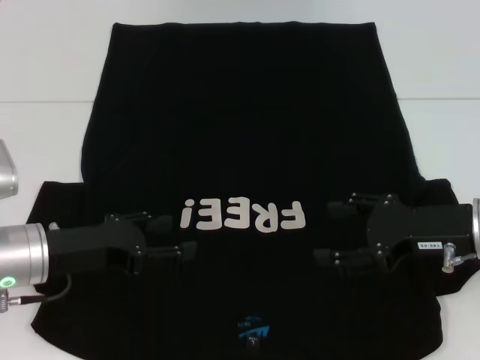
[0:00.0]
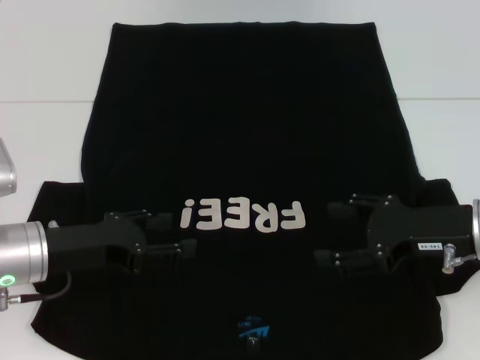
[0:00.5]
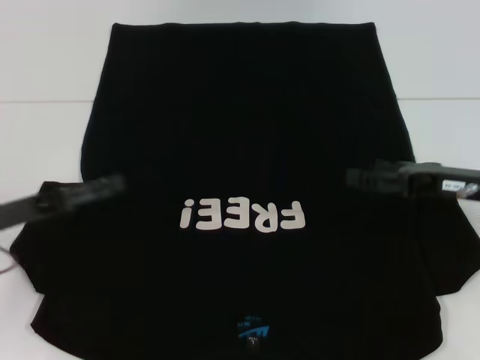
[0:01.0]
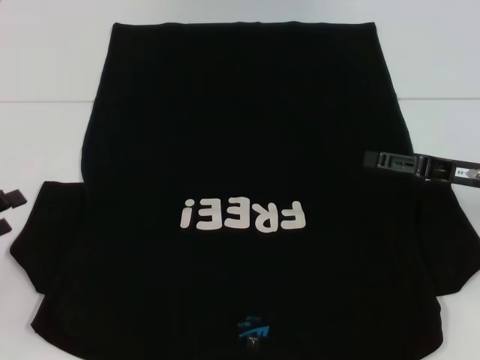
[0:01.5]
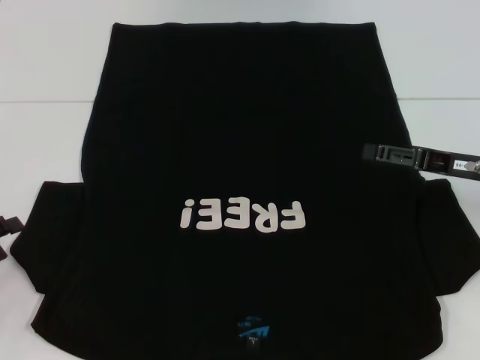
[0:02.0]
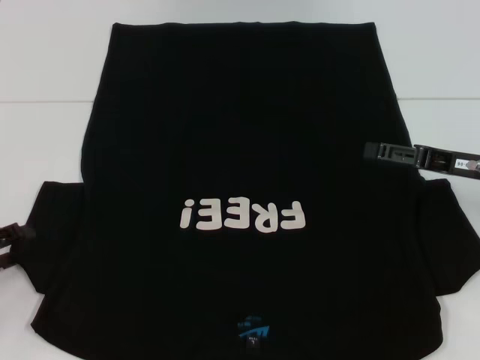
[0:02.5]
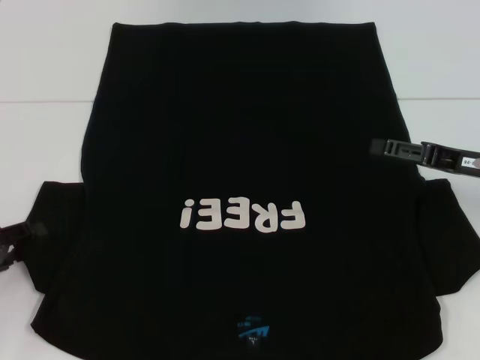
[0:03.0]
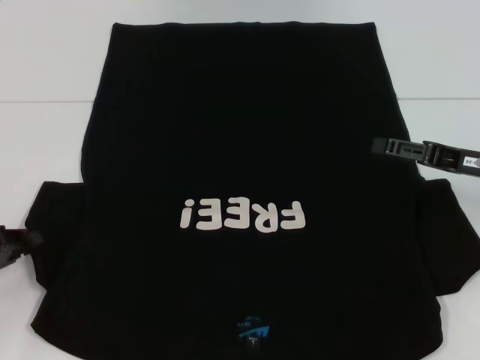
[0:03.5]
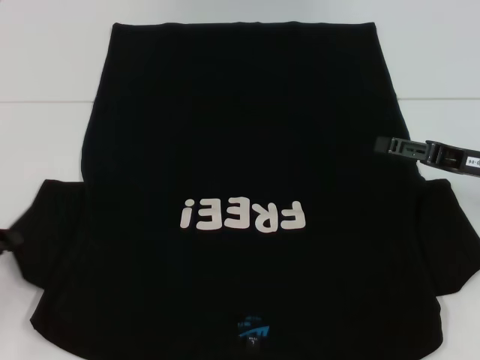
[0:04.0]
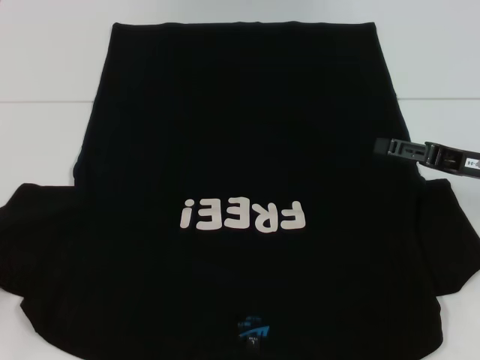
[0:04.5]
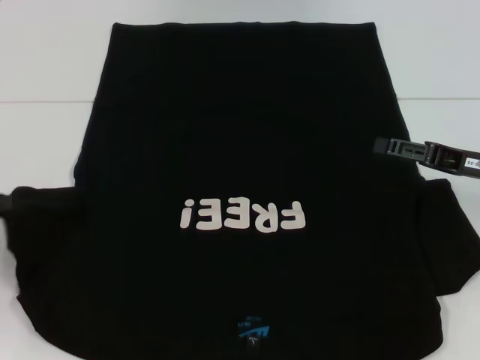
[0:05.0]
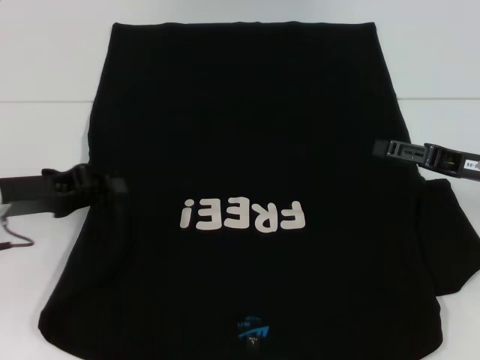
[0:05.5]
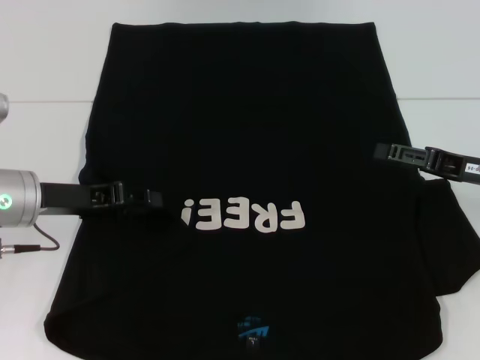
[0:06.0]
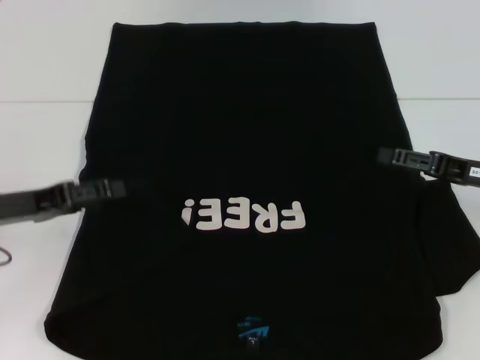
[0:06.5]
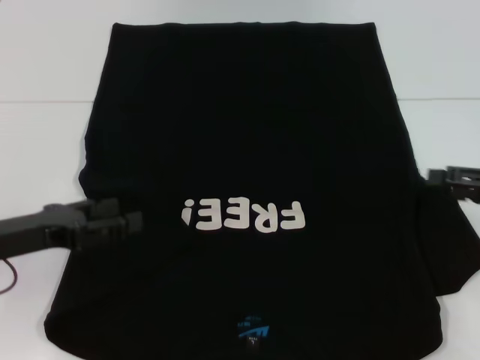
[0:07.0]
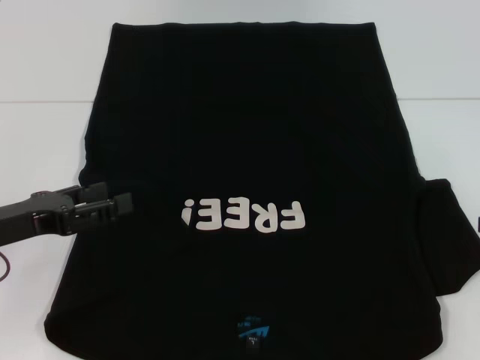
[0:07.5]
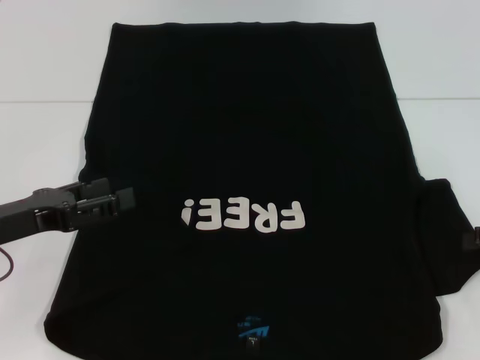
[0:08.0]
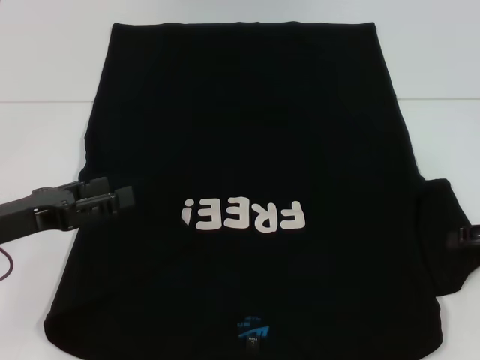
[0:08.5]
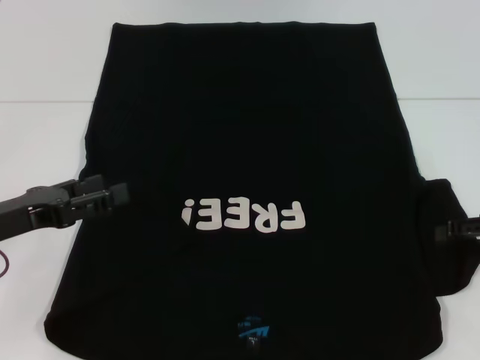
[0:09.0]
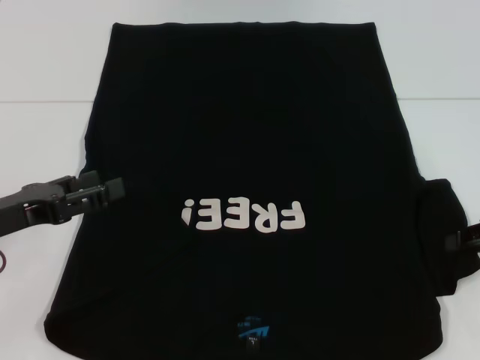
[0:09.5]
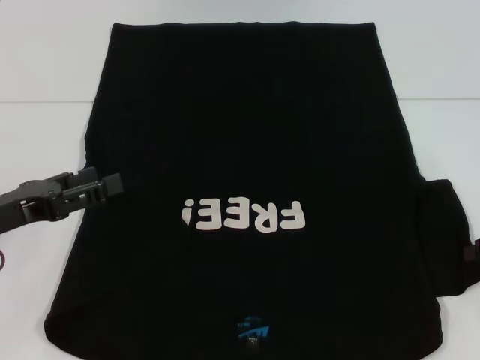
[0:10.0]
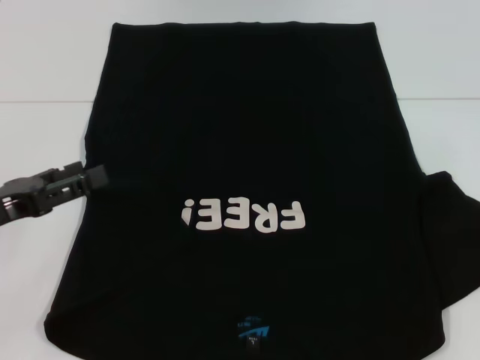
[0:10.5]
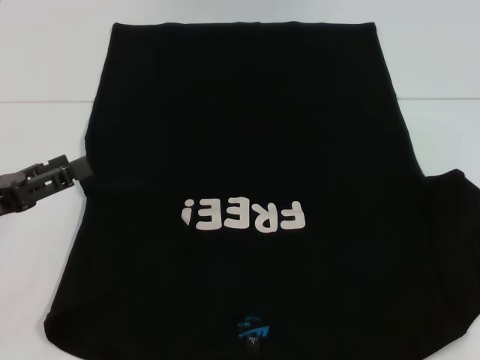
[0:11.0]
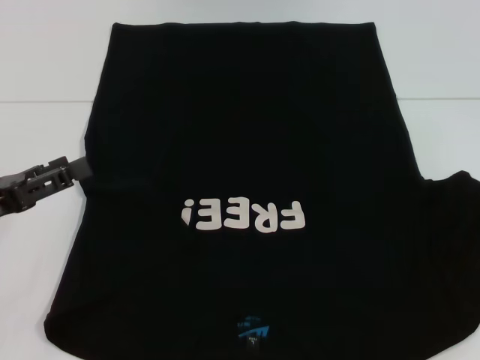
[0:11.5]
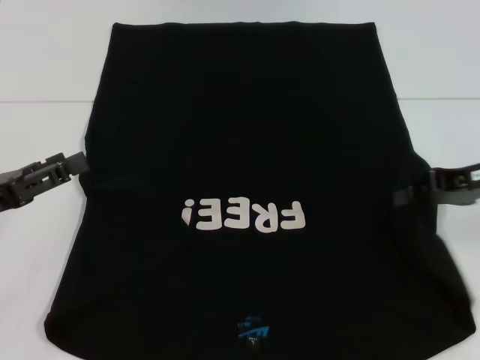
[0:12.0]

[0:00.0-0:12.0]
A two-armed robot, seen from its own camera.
Step, 0.0 to 6.5 s: Fold the bottom left sleeve with your left hand.
0.0 to 2.0 s: The right gripper moves about 5 cm; the left gripper is displaced to the left by approximately 15 cm.
2.0 to 4.0 s: The left gripper closes up.
4.0 to 6.0 s: The left gripper moves to the right and forward, about 15 cm.
6.0 to 8.0 s: The right gripper is displaced to the right by roughly 10 cm. Meanwhile the left gripper is displaced backward by roughly 5 cm, and opens up.
10.0 to 12.0 s: The right gripper shifts about 5 cm to the left.

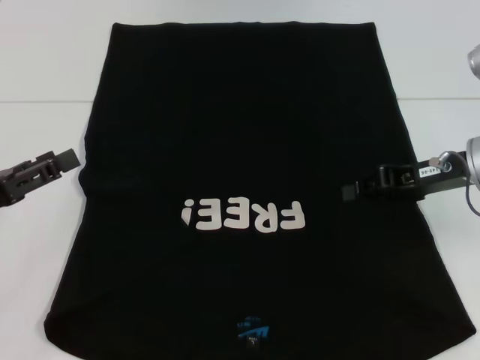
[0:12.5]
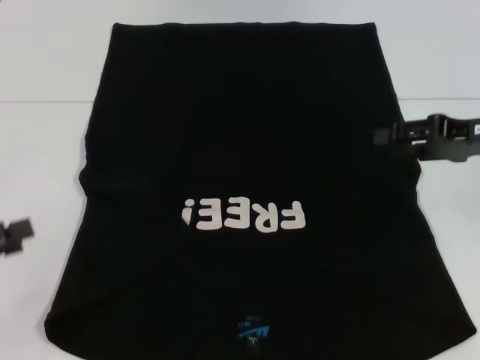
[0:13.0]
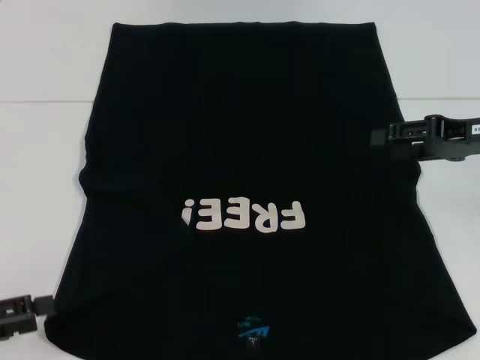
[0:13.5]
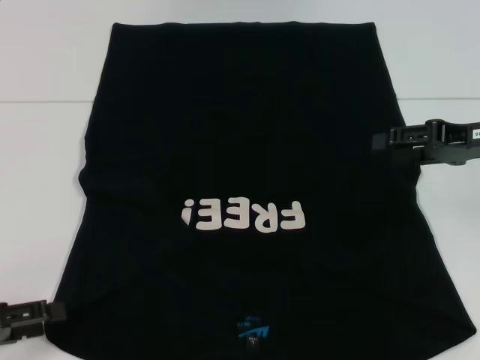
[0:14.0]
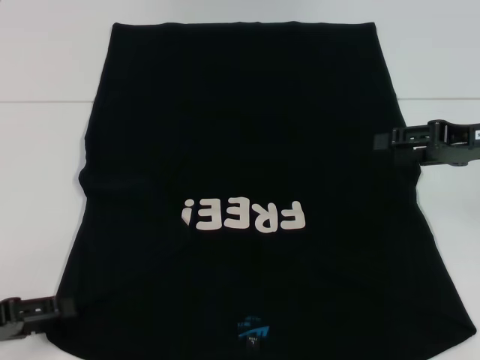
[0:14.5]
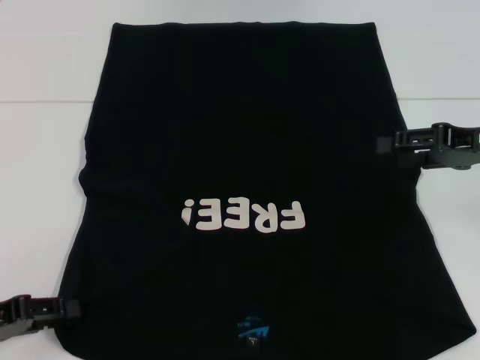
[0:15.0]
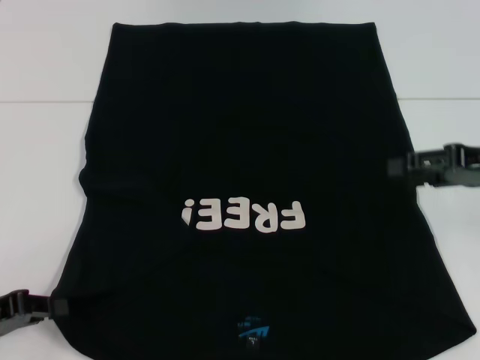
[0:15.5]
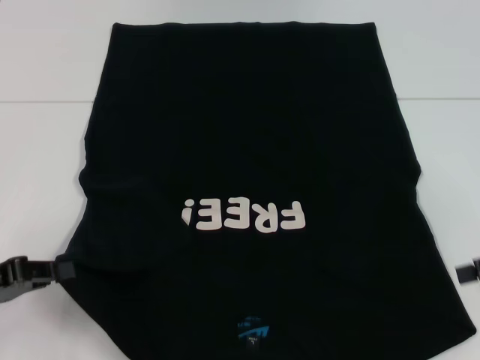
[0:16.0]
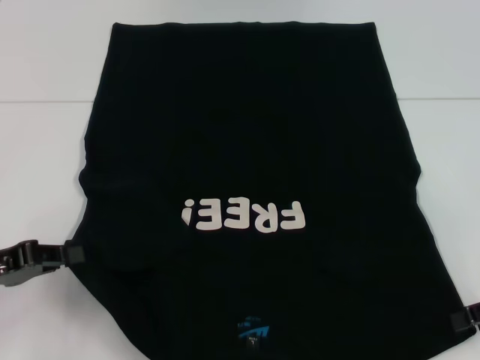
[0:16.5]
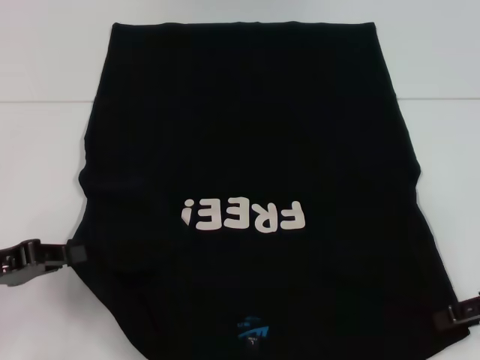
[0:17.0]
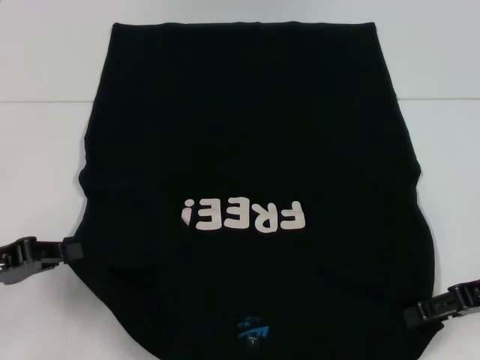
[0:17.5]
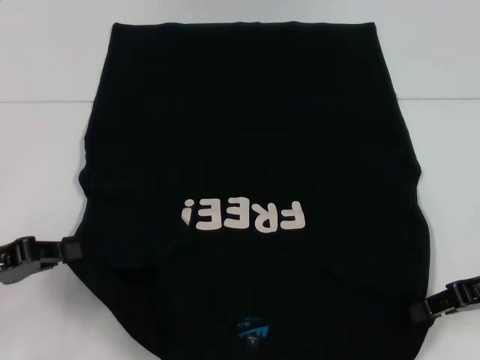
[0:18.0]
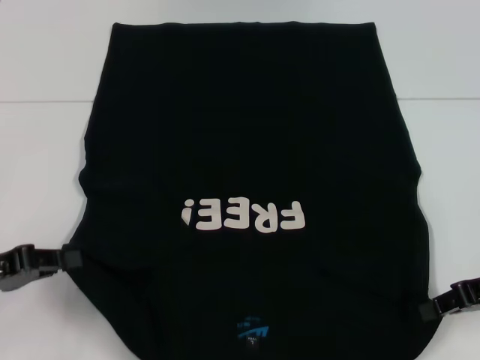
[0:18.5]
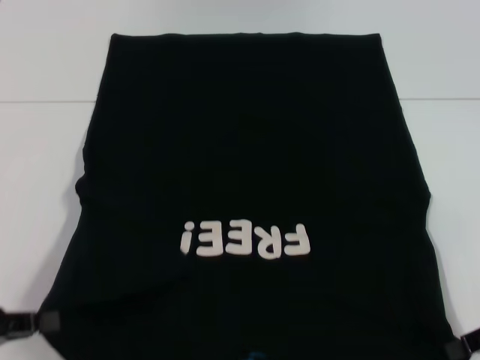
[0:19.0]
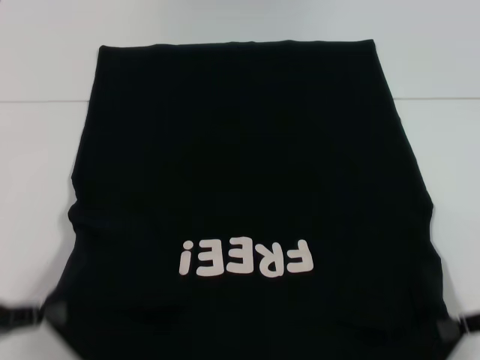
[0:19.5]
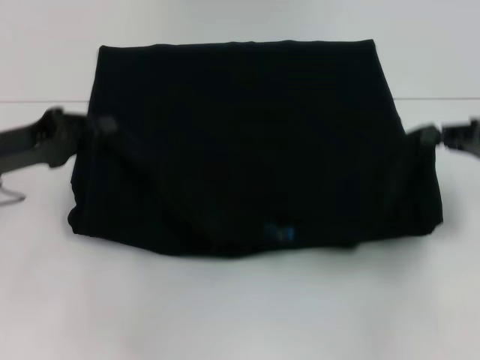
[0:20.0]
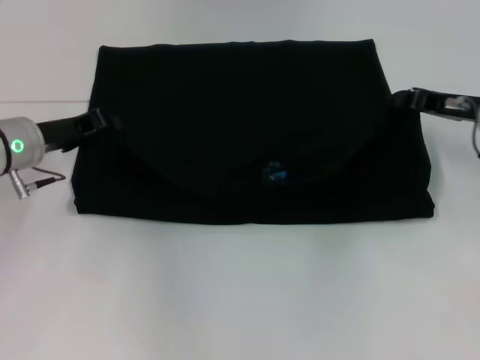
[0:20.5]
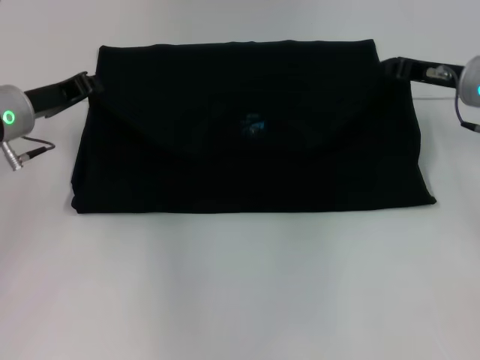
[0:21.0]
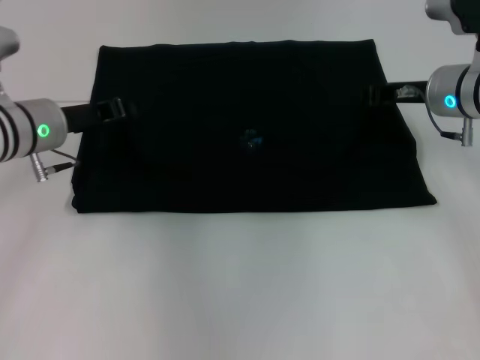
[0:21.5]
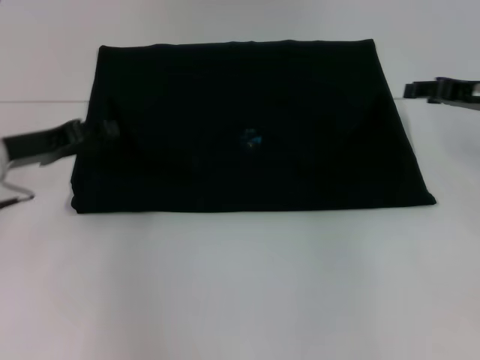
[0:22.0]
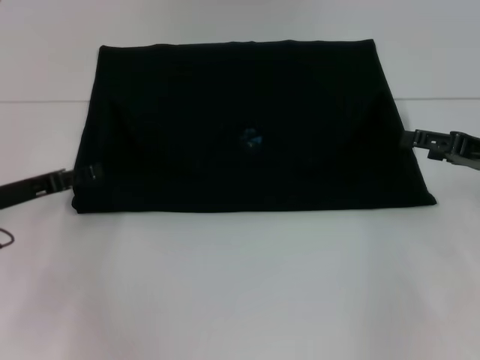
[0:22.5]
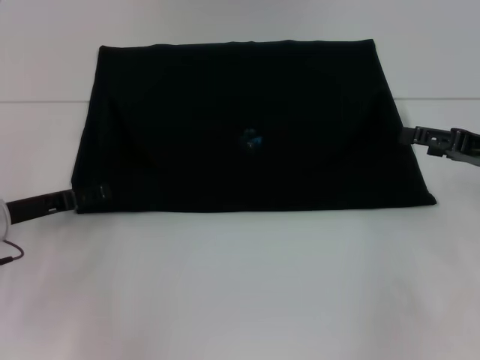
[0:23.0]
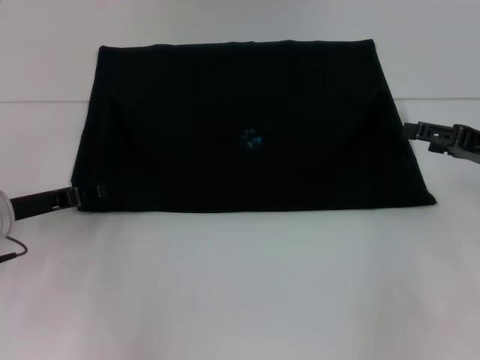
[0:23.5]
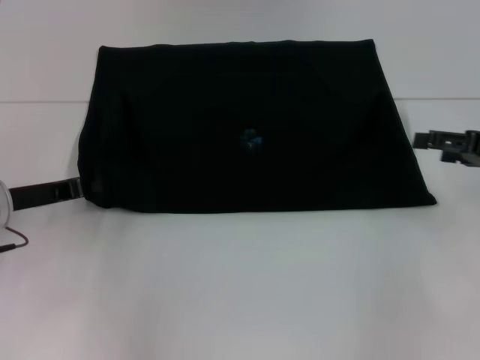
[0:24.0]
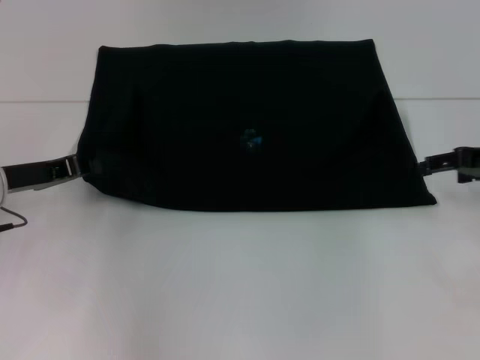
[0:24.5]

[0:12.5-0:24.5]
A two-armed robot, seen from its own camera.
Step, 13.0 to 15.0 s: Grab the bottom left corner with your left hand.
Step, 15.5 to 18.0 s: Grab the bottom right corner with your right hand.
Step, 18.5 to 21.5 s: Fold the clothes with your left hand.
Step, 18.5 to 21.5 s: Fold the clothes with your right hand.
12.5 to 14.5 s: The right gripper changes place by approximately 5 cm, and opens its fingers. Meanwhile the left gripper changes place by some 5 cm.
14.5 to 16.5 s: The right gripper heads backward, to the right and downward, covering about 10 cm. Meanwhile the left gripper closes.
16.5 to 18.5 s: The right gripper closes.
18.5 to 20.5 s: The left gripper travels forward and to the right by about 15 cm. The right gripper moves forward, some 10 cm.
20.5 to 22.5 s: The grippers both shift backward by roughly 5 cm. The right gripper opens up. The left gripper opens.
22.5 to 24.5 s: The left gripper closes up.

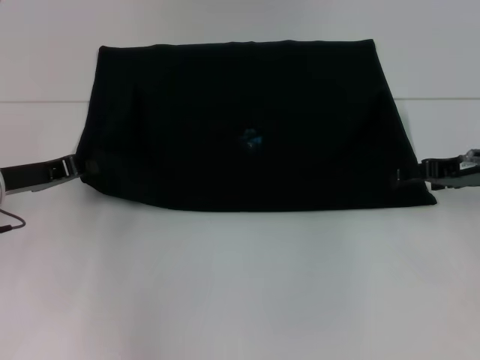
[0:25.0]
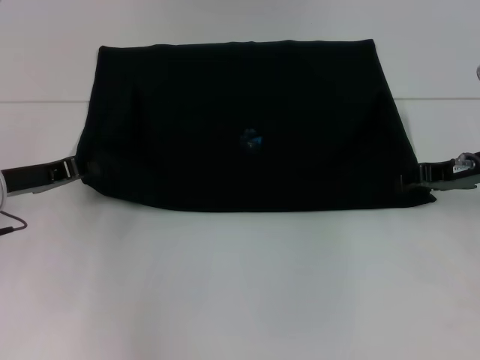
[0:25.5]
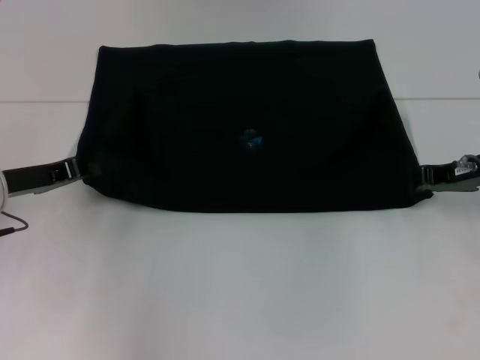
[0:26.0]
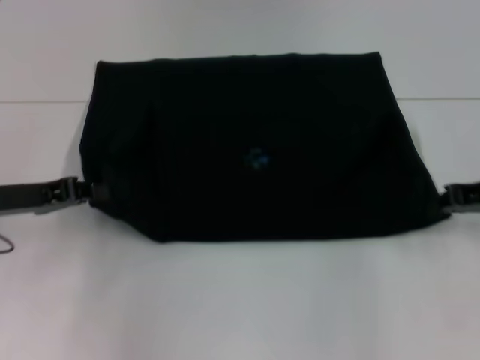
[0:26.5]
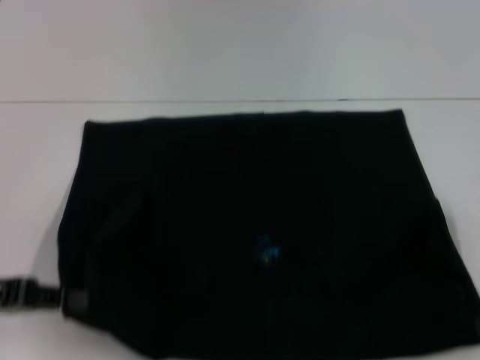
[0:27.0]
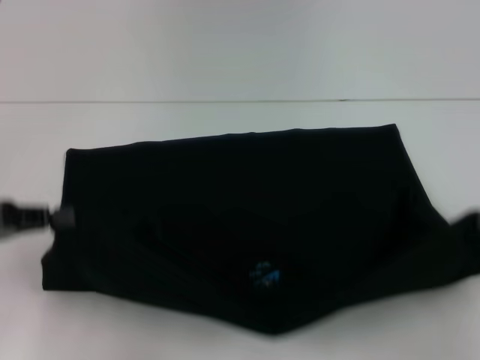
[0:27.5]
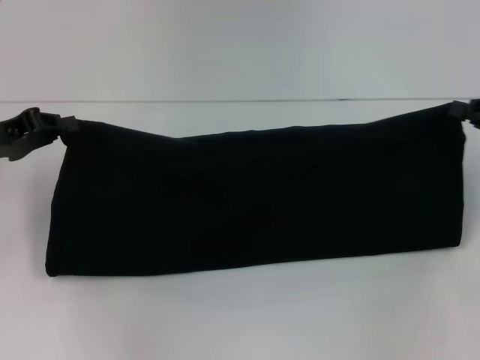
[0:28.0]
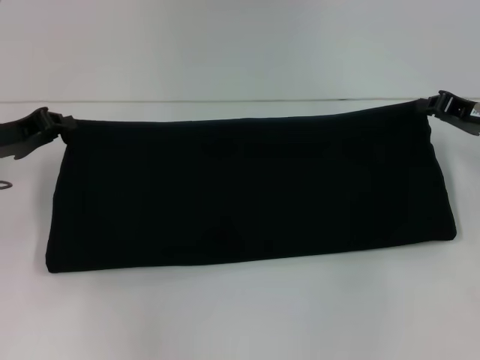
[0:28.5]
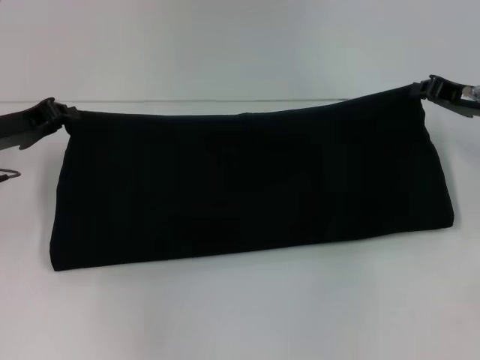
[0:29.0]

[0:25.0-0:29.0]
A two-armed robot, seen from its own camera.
Step, 25.0 to 27.0 s: Pull the clothes with your left hand.
Step, 25.0 to 27.0 s: Pull the clothes with your right hand.
25.0 to 27.0 s: The right gripper heads backward and to the right, covering about 15 cm, and closes, while the left gripper travels backward by some 10 cm.
27.0 to 29.0 s: The left gripper goes approximately 15 cm forward, while the right gripper travels forward and to the left by approximately 15 cm.
